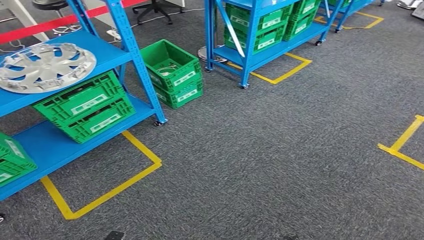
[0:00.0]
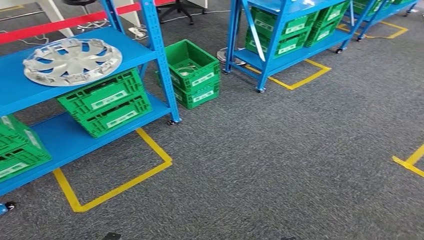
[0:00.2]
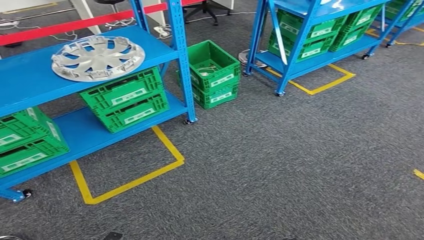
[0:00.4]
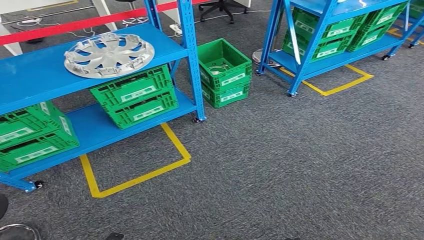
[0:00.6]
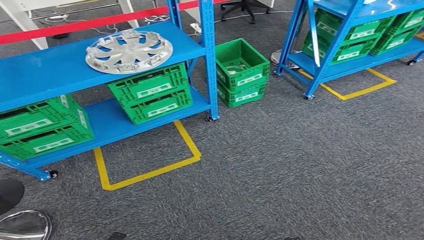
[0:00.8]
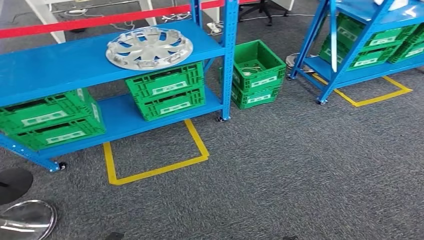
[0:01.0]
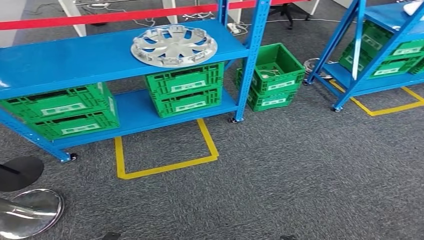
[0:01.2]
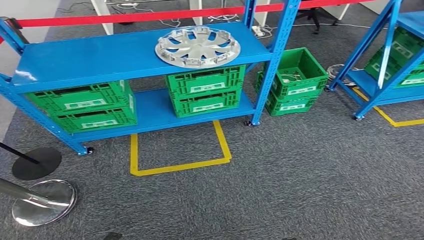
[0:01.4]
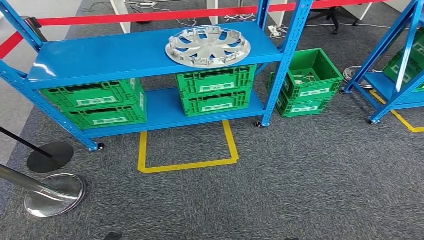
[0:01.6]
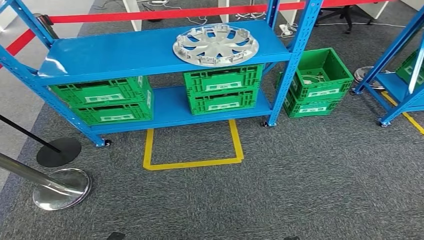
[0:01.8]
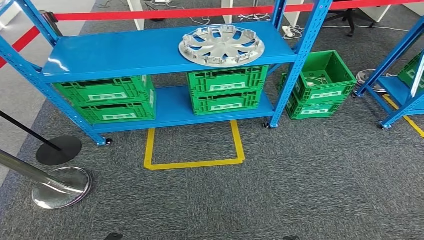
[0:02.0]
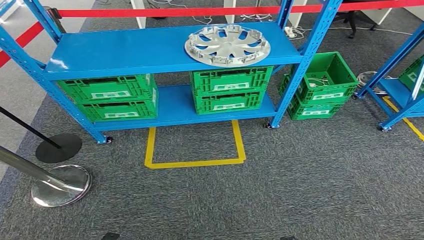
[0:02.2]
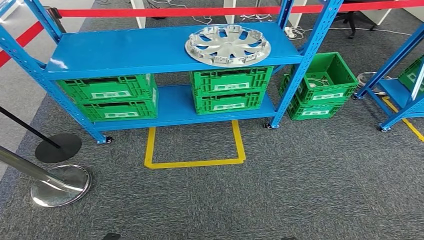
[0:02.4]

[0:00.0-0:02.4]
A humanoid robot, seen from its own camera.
Step, 0:00.0 to 0:02.4: Return to the initial position at the workbench.
